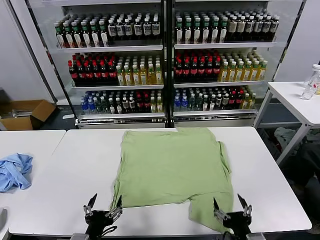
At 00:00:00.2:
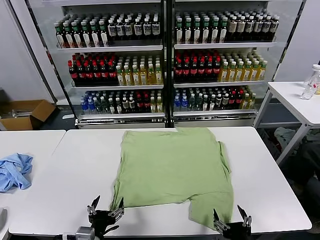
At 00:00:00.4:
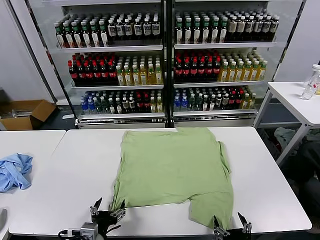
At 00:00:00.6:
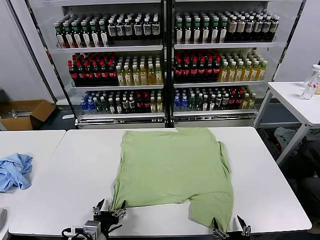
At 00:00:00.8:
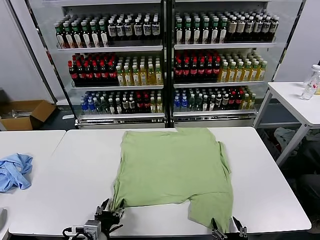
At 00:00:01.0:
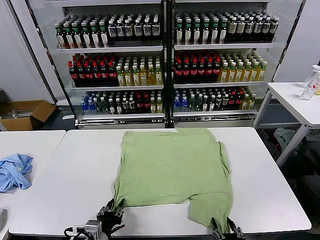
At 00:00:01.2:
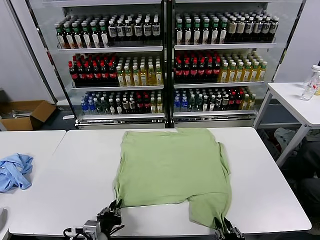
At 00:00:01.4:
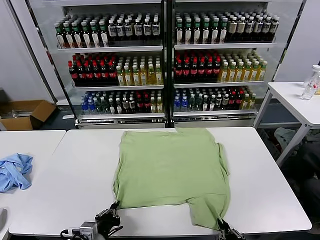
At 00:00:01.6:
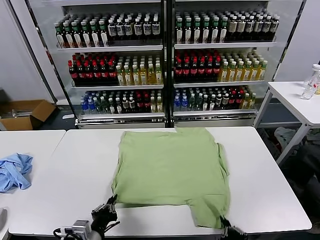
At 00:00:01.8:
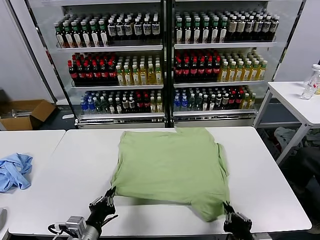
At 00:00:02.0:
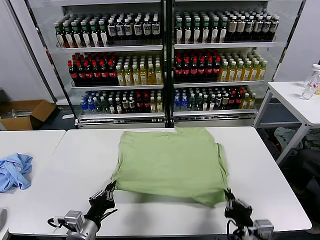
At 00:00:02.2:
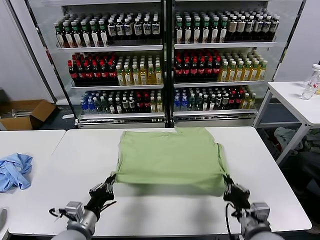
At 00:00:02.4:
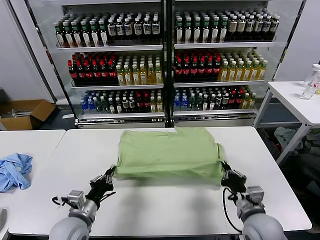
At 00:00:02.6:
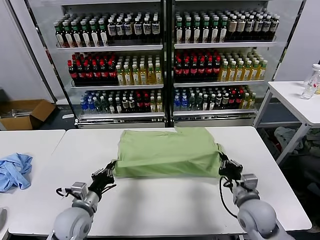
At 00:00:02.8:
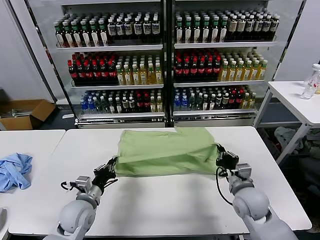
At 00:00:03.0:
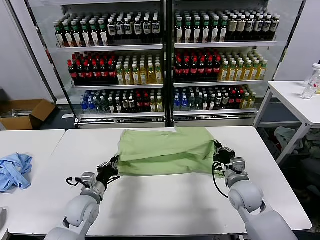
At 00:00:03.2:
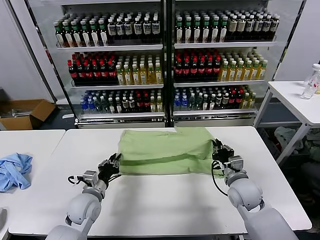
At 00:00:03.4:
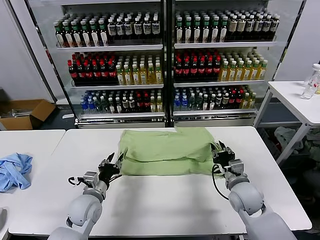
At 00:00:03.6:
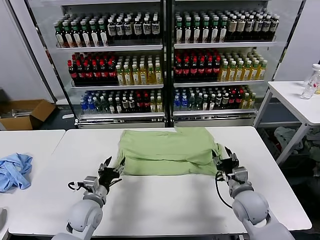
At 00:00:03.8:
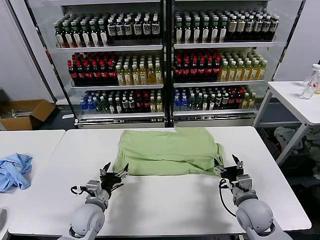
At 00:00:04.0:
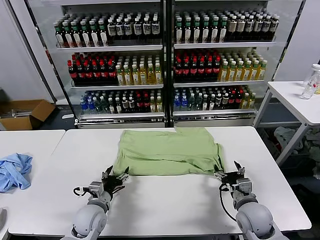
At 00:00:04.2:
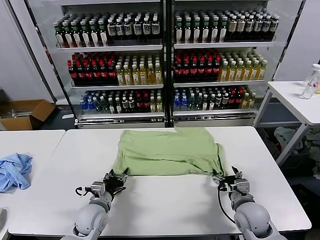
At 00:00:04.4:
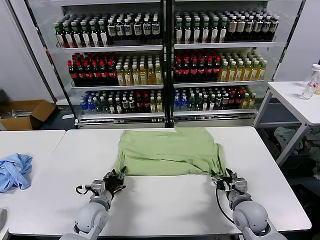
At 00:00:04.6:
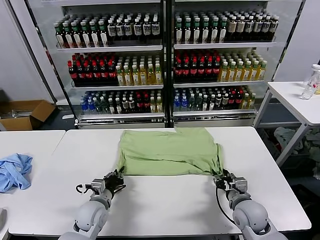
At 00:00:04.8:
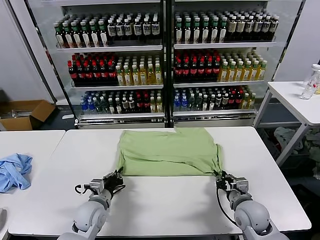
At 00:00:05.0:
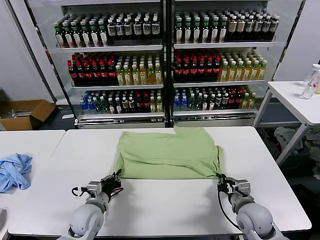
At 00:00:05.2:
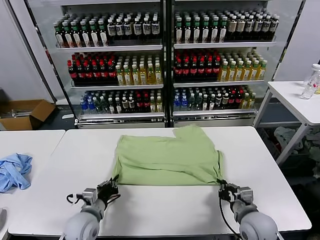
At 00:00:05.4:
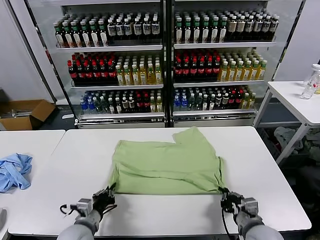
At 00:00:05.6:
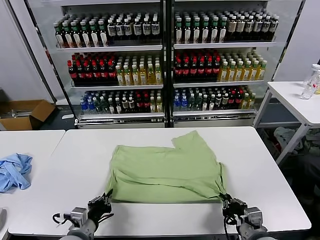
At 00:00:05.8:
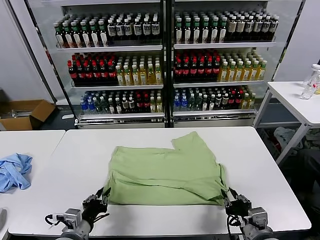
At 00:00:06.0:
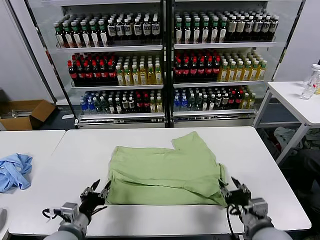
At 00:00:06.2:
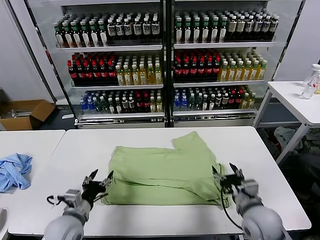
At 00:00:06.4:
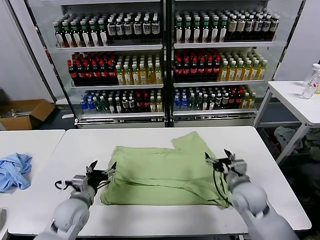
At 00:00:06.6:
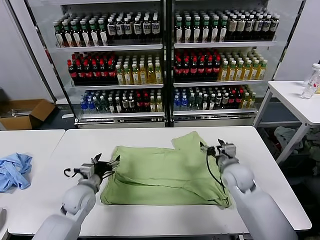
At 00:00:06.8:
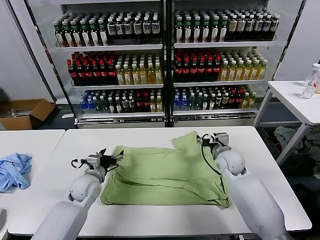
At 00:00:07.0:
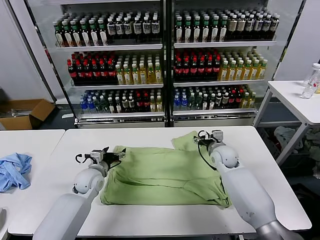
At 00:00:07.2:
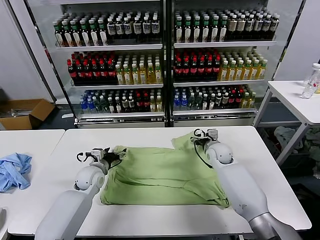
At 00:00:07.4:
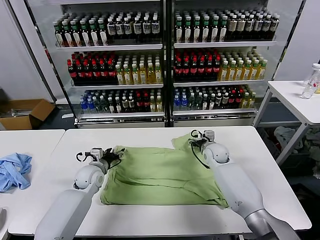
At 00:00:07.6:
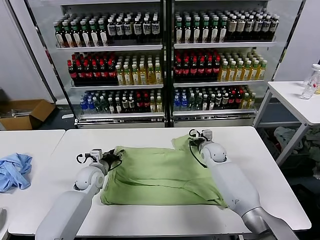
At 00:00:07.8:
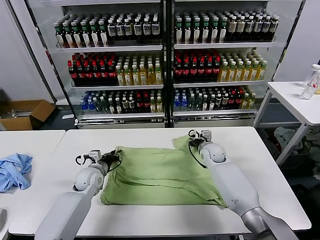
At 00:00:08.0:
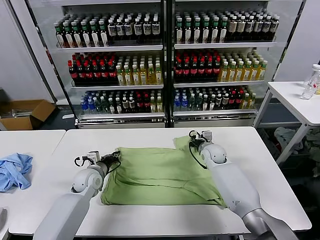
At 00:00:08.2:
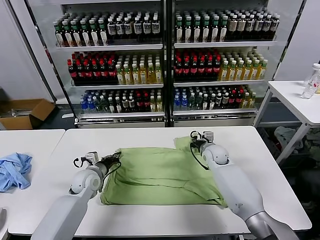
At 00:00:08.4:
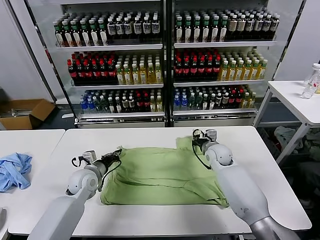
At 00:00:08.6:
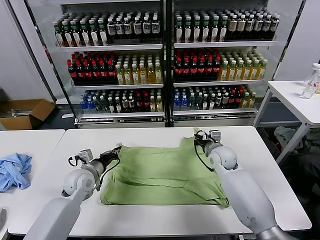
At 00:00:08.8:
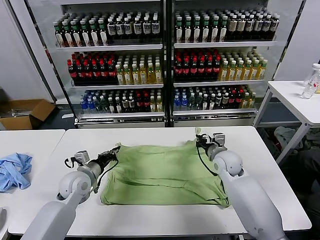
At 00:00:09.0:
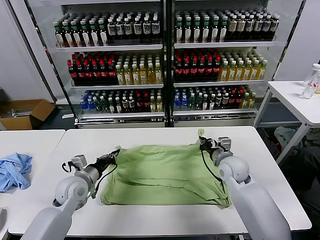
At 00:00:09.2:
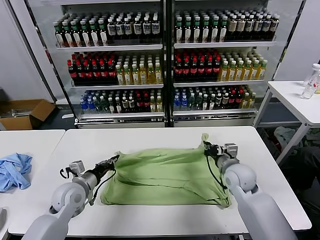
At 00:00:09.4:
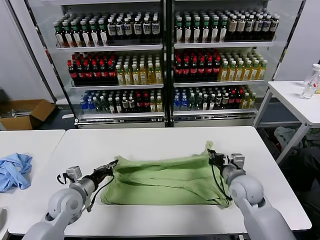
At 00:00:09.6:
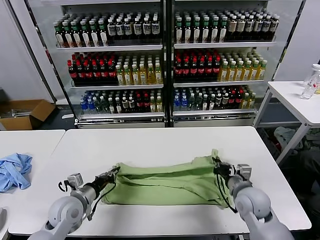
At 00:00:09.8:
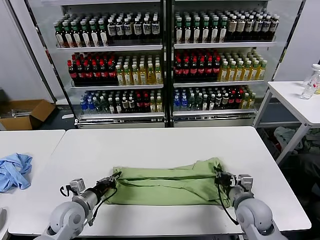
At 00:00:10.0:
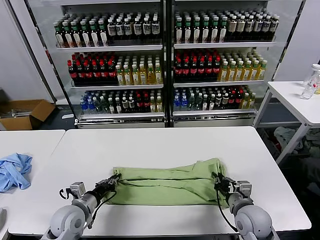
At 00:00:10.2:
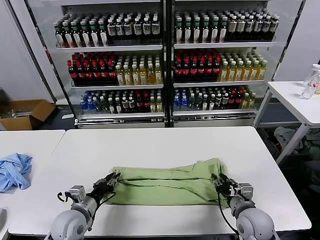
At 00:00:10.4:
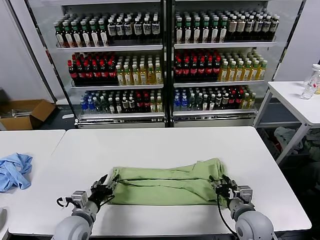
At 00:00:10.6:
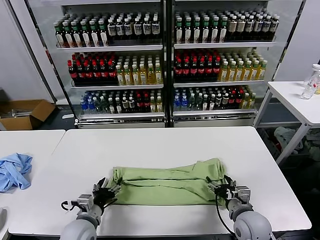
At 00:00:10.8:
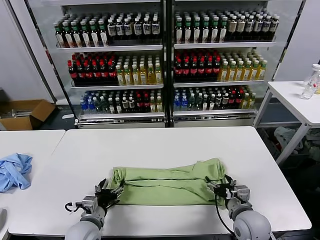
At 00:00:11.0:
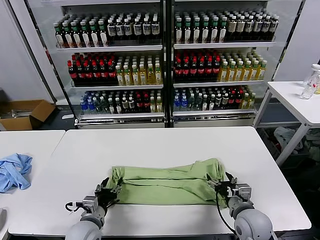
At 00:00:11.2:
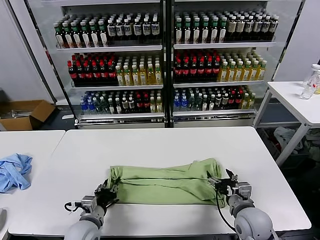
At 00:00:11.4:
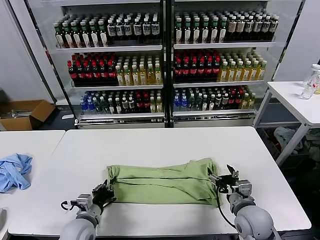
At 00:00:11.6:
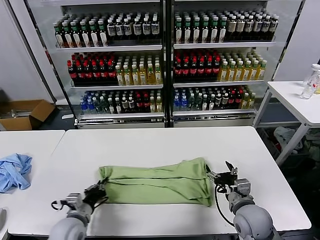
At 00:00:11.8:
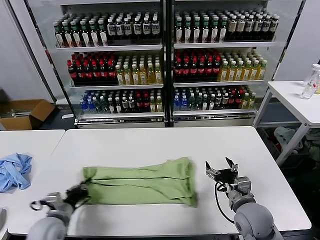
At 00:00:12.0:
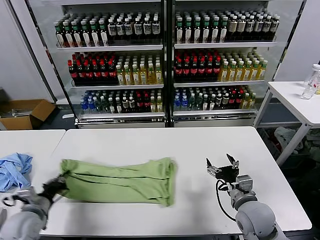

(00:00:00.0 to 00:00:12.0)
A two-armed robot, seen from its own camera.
Task of the whole recording: fold and organize the clothes.
Step, 00:00:00.0 - 00:00:01.4: use both grippers simultaneously to clamp the lower edge of the clothing fabric.
Step, 00:00:01.6 - 00:00:03.6: use both grippers to drag the lower edge of the fabric forward and fold it over the upper edge.
Step, 00:00:03.8 - 00:00:05.8: Drag the clothes downward with both gripper.
Step, 00:00:06.0 - 00:00:08.0: use both grippers simultaneously to clamp the upper edge of the clothing fabric.
Step, 00:00:08.2 - 00:00:10.2: use both grippers to drag the upper edge of the fabric backward and fold it over the lower edge.
Step, 00:00:10.4 - 00:00:11.4: use the left gripper to clamp the left edge of the fabric.
00:00:01.6 - 00:00:03.0: The two grippers go some 20 cm forward.
00:00:03.0 - 00:00:04.4: The left gripper opens, then closes once more, while the right gripper is displaced backward by roughly 5 cm, and opens up.
00:00:04.4 - 00:00:06.0: Both grippers travel together backward and upward, about 10 cm. The right gripper closes and opens again.
00:00:06.0 - 00:00:07.6: Both grippers travel together forward, roughly 25 cm. The left gripper opens, then closes once more.
00:00:07.6 - 00:00:09.0: The right gripper shifts roughly 15 cm backward and upward, and closes up. Meanwhile the left gripper heads backward, covering roughly 5 cm, and closes its fingers.
00:00:09.0 - 00:00:10.4: The grippers both shift backward by approximately 15 cm. The right gripper opens its fingers. Meanwhile the left gripper opens up.
00:00:10.4 - 00:00:12.0: The left gripper heads to the left, covering about 15 cm, and closes.

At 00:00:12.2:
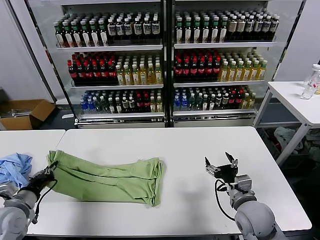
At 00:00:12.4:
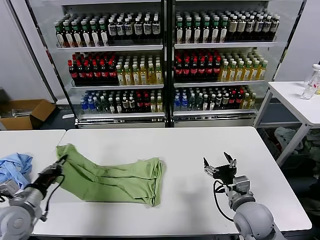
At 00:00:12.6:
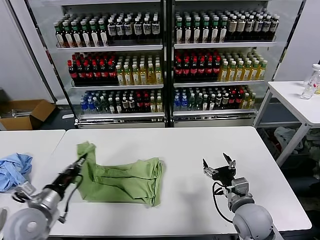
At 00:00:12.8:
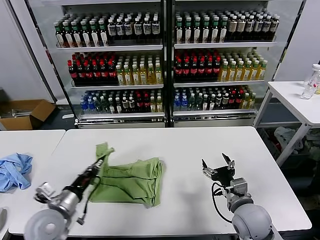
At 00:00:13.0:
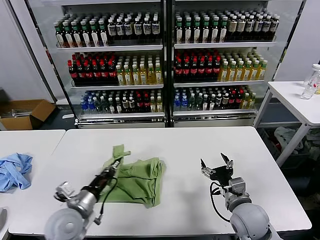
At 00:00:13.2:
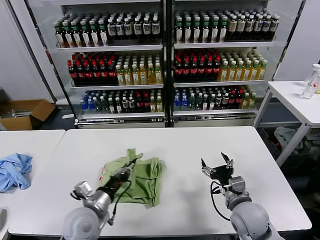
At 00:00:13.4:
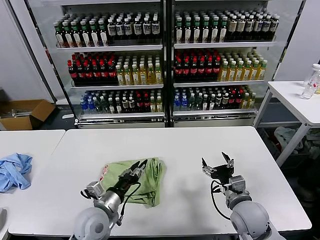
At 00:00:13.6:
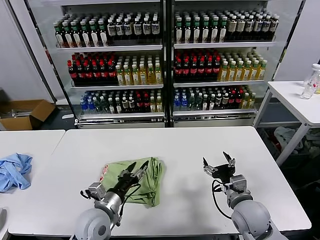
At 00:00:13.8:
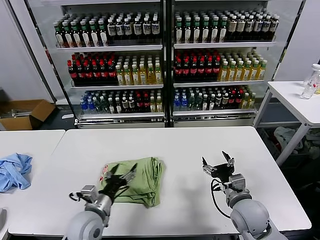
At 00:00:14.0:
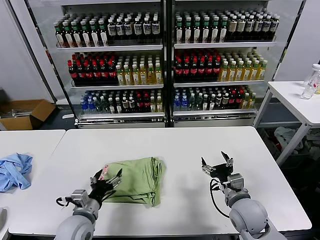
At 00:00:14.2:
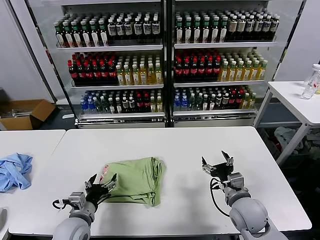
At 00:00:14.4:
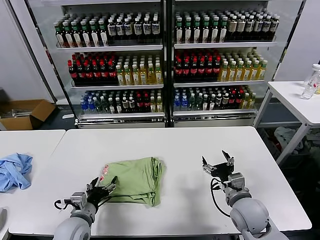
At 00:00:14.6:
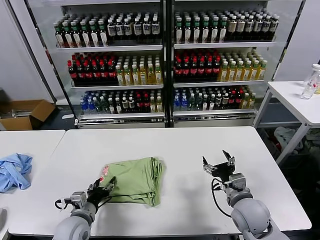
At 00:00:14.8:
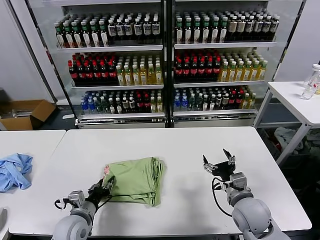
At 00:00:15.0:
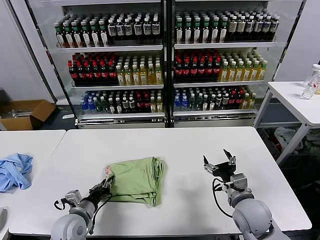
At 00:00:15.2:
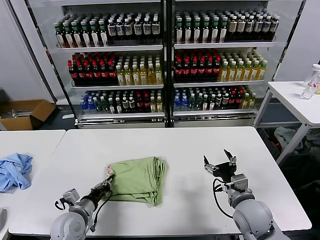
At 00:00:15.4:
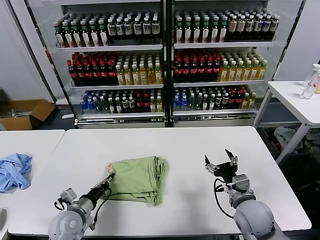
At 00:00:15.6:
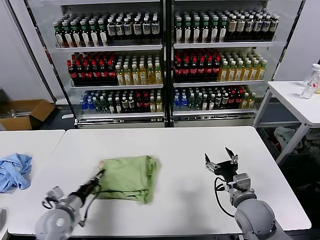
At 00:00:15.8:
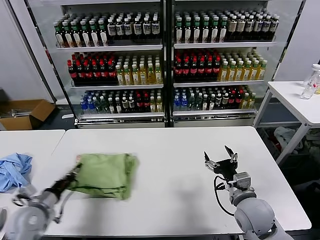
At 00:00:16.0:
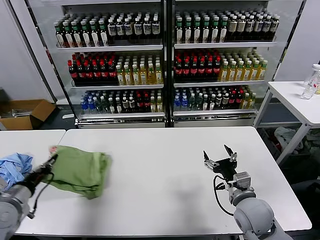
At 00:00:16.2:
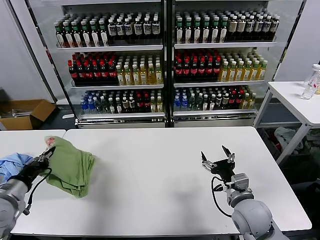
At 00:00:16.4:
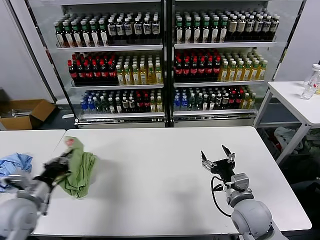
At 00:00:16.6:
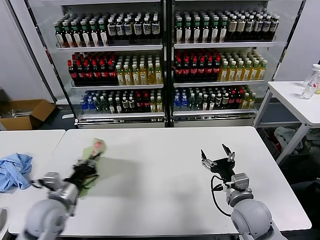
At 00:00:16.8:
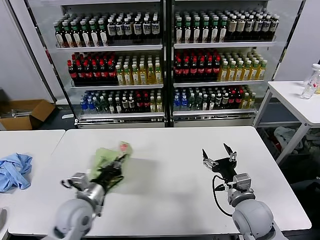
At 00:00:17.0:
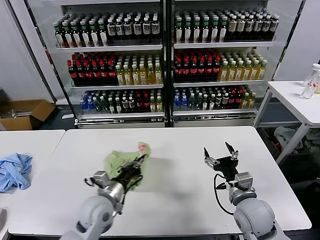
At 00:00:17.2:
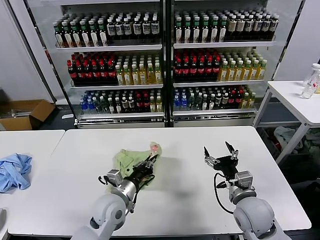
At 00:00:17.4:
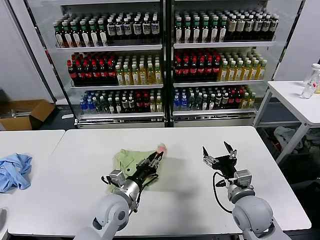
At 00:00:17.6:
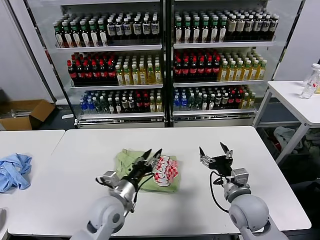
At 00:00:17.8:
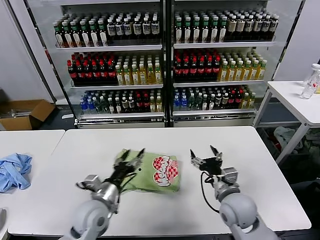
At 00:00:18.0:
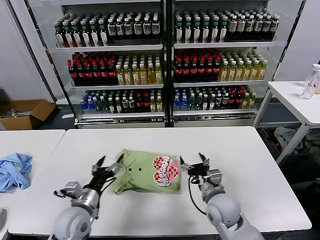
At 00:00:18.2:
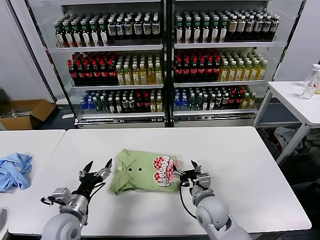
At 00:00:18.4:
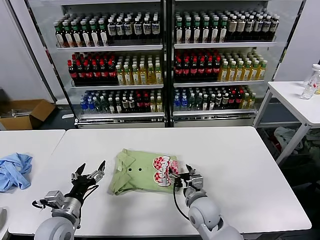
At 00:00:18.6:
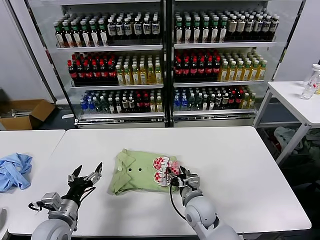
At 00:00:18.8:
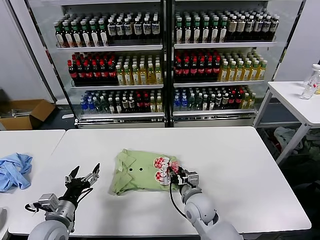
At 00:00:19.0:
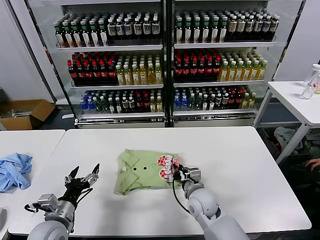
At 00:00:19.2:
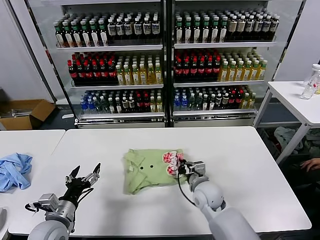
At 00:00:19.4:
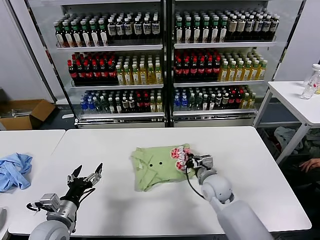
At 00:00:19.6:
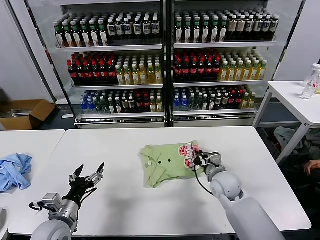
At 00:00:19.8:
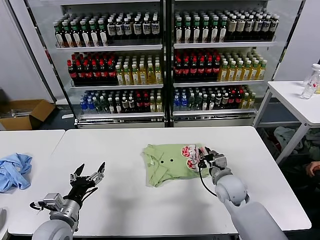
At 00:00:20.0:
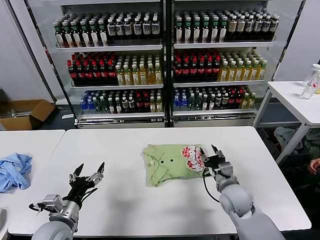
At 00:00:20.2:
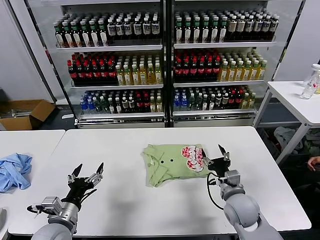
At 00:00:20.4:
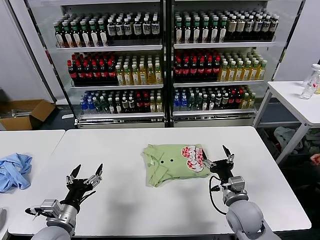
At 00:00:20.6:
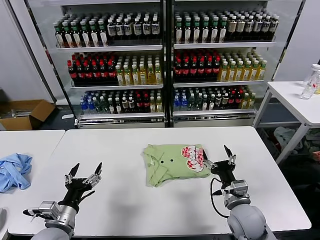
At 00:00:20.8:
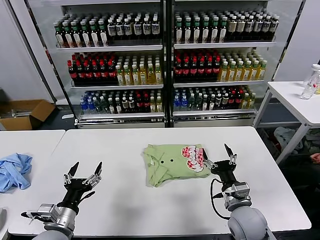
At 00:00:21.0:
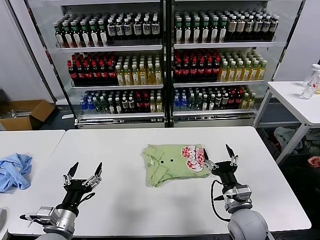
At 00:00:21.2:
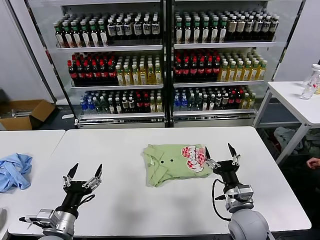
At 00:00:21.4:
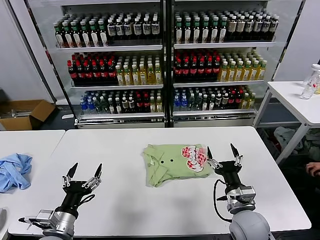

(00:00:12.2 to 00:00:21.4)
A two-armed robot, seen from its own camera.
Task of the whole recording: fold and organize the clothes.
Step, 00:00:12.2 - 00:00:13.4: use the left gripper to drag the left edge of the fabric to the left and folds it over the right edge.
Step, 00:00:13.6 - 00:00:17.4: Flip the folded clothes over with left gripper.
Step, 00:00:17.6 - 00:00:19.8: Drag the clothes to the center of the table.
00:00:12.2 - 00:00:13.8: The left gripper is displaced to the right by some 20 cm, and opens its fingers.
00:00:13.8 - 00:00:15.2: The left gripper is displaced to the left by about 5 cm, and closes.
00:00:15.2 - 00:00:16.8: The left gripper moves upward, roughly 10 cm, and reaches roughly 15 cm to the left, then returns.
00:00:16.8 - 00:00:18.4: The right gripper shifts approximately 15 cm to the left and downward. Meanwhile the left gripper moves roughly 10 cm to the right and comes back, and opens.
00:00:18.4 - 00:00:19.8: The right gripper shifts about 10 cm to the right and forward, and closes its fingers.
00:00:19.8 - 00:00:21.4: The right gripper heads backward, covering some 15 cm, and opens its fingers; the left gripper changes place by about 5 cm.
